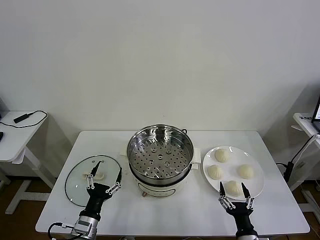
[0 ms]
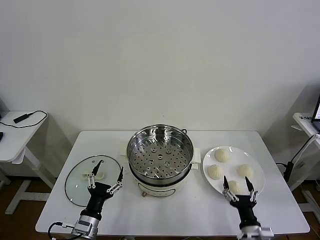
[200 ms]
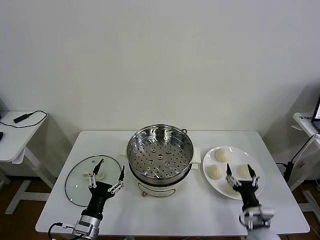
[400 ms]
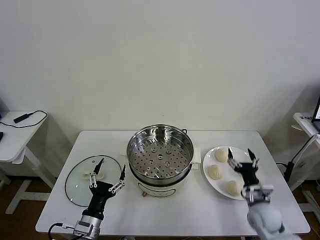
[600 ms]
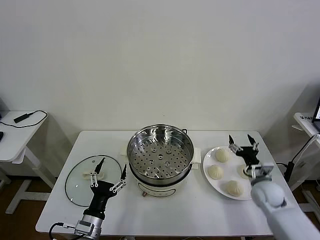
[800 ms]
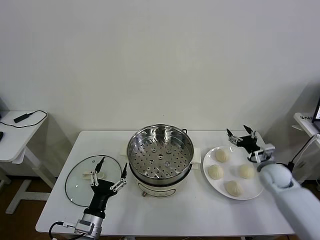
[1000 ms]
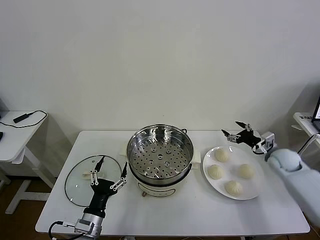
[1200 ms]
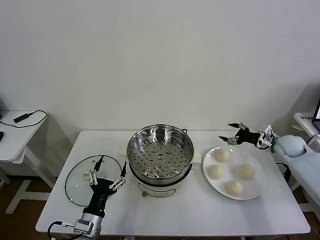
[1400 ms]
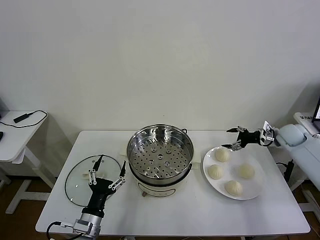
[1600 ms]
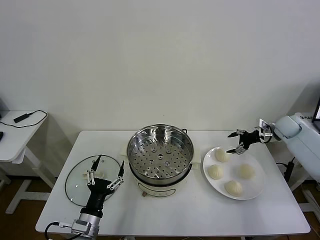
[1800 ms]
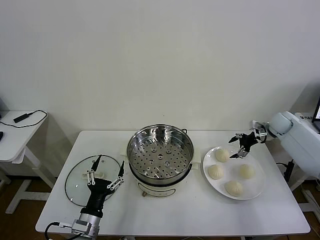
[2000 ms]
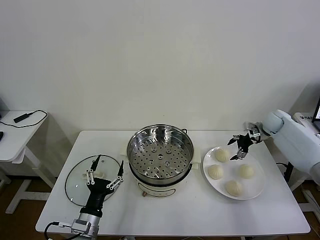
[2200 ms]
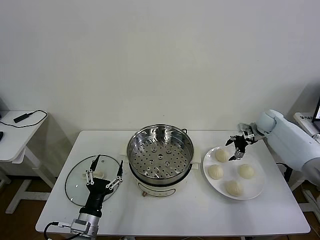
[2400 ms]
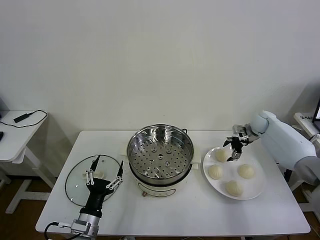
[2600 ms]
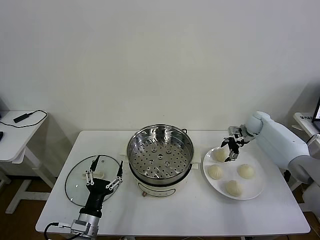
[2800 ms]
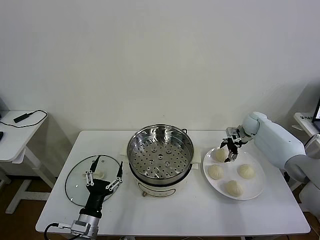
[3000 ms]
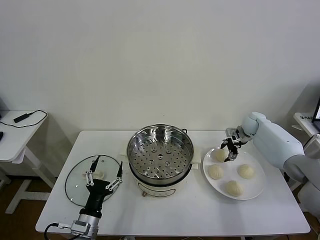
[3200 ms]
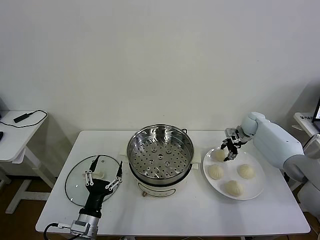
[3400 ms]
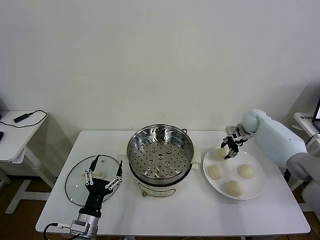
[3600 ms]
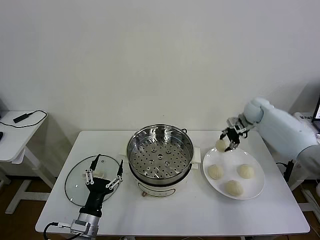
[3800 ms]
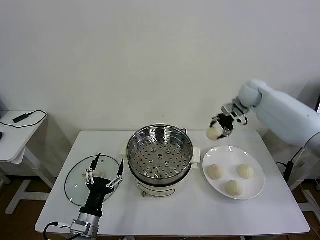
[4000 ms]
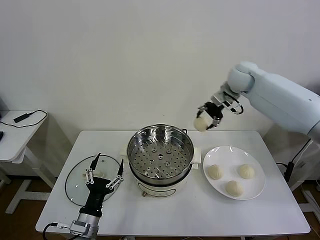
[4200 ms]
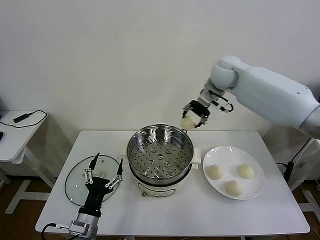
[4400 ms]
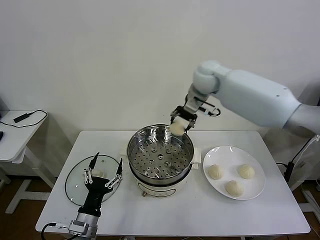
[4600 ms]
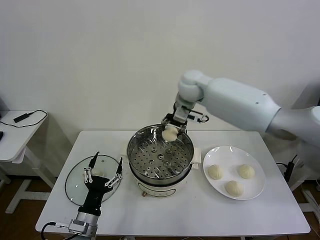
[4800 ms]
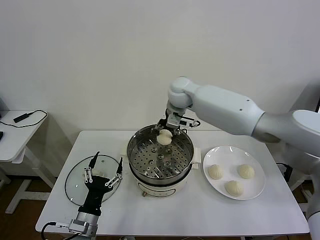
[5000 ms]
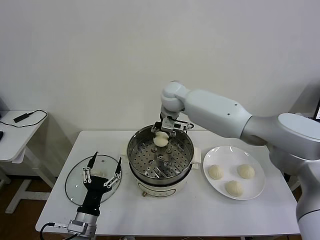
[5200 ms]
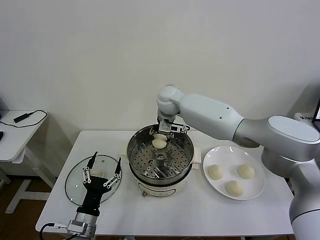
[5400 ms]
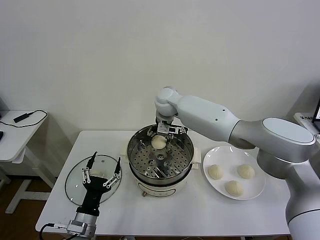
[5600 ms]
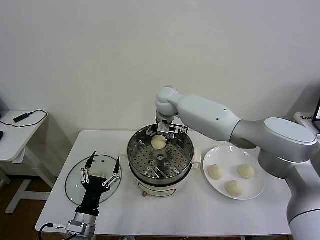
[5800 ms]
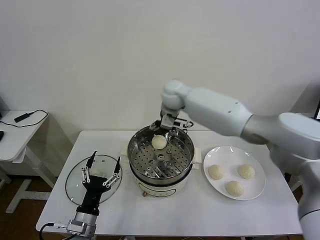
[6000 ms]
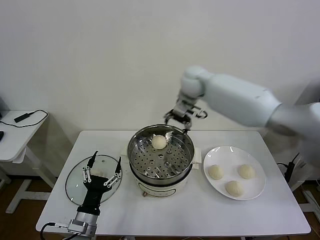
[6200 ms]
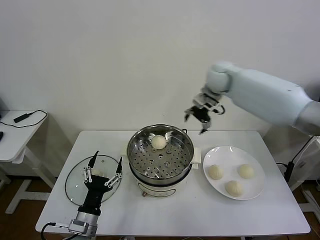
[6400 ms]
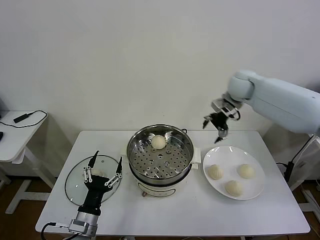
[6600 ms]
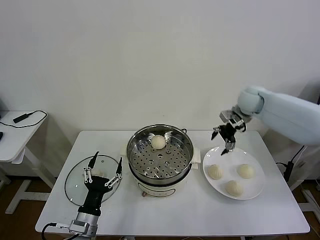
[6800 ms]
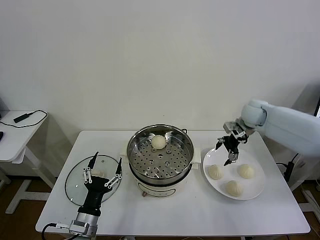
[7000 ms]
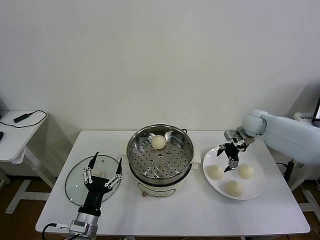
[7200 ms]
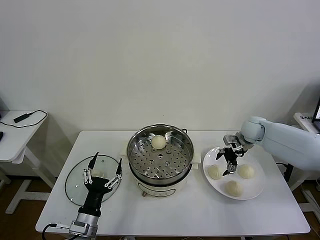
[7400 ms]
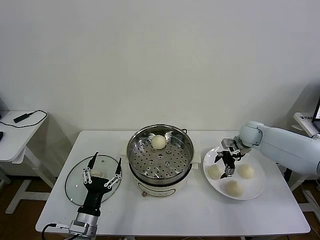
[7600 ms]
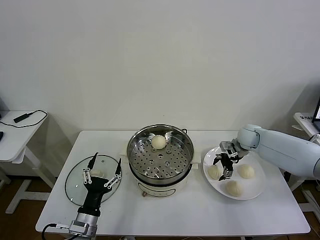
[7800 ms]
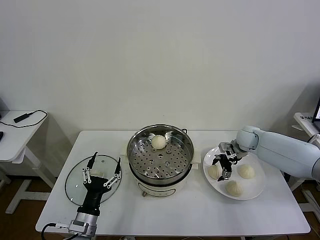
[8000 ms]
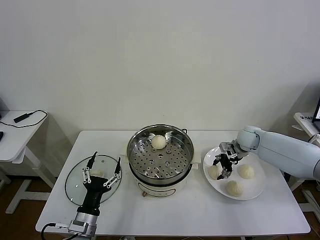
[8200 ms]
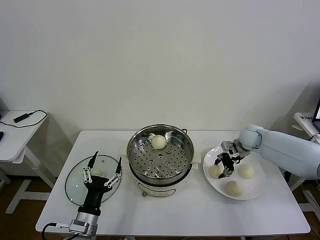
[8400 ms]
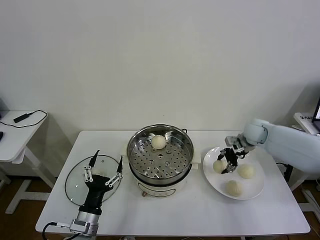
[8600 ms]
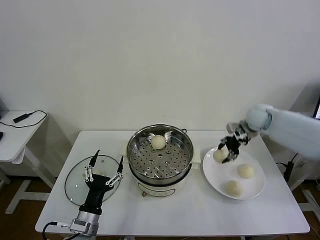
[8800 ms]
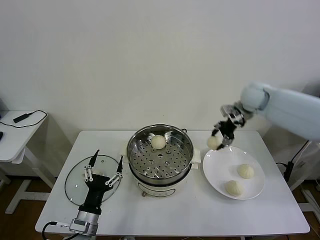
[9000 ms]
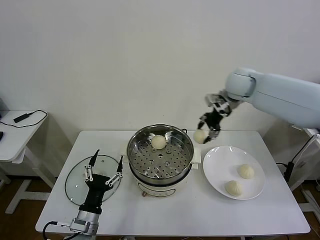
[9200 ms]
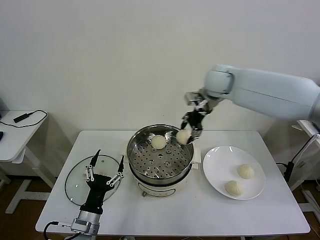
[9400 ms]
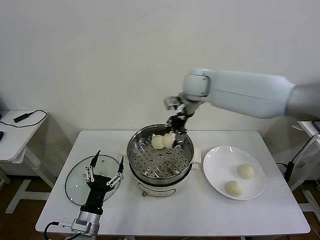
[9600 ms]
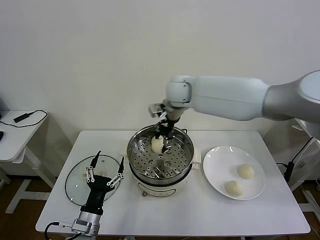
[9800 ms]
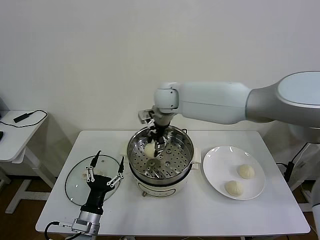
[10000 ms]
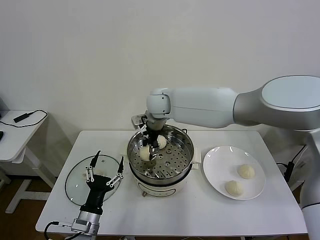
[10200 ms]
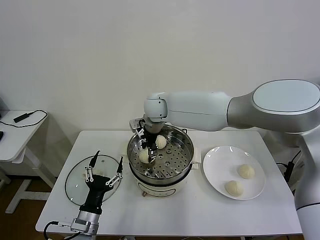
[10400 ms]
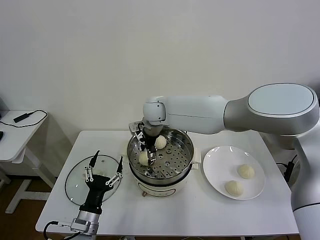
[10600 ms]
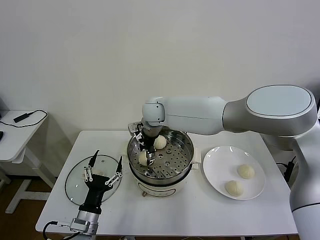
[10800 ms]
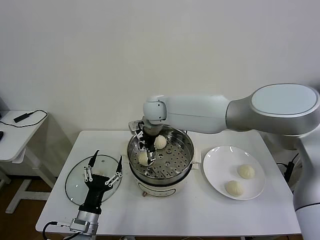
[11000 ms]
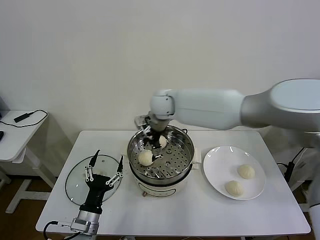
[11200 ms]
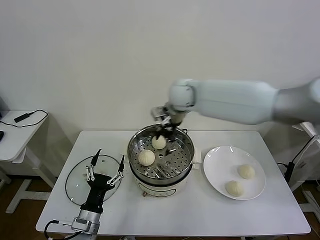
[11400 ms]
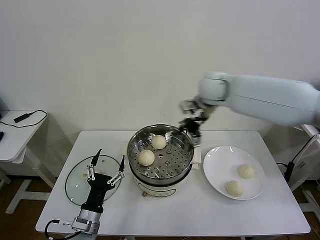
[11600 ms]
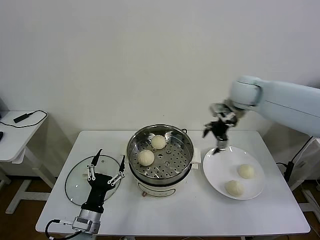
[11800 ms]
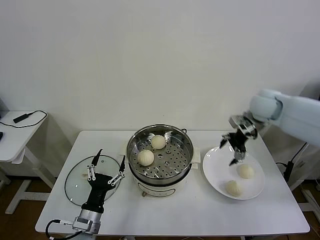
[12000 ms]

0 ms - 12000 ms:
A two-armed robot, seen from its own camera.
Task of the whole recording: take steamed baozi put them in steamer then cover it.
Step, 0 ms - 3400 ms: Grasp the baozi in the plate with right gripper.
Step, 3600 ms - 5800 ms: Place the baozi on the steamer with right gripper.
Step, 6000 ms - 8400 ms: Grasp the baozi in the plate with right gripper.
Step, 8600 ms - 11000 ms: Place the baozi on the steamer with right gripper.
1600 ms - 3000 ms: The right gripper is displaced to the left and forward by about 10 cm.
3000 ms - 4400 ms: The right gripper shifts approximately 35 cm upward and to the left, and closes up.
4400 ms - 6000 ms: The right gripper travels to the left by some 10 cm, and opens up.
6000 ms - 7600 ms: The right gripper shifts some 35 cm to the right and downward.
7600 ms - 9000 ms: The right gripper heads upward, covering roughly 20 cm, and closes its fingers.
9000 ms - 10400 ms: The right gripper travels to the left by roughly 30 cm.
10400 ms - 12000 ms: The right gripper goes roughly 35 cm to the right, and opens up.

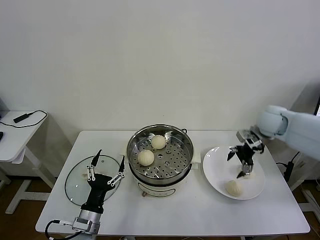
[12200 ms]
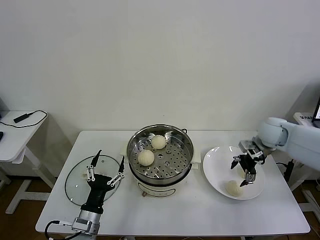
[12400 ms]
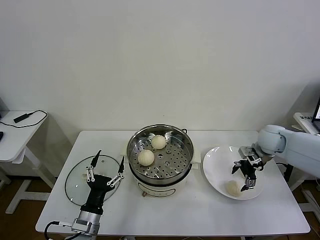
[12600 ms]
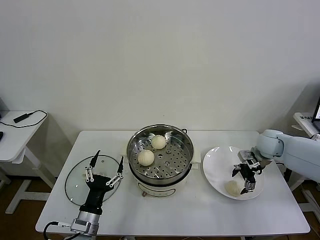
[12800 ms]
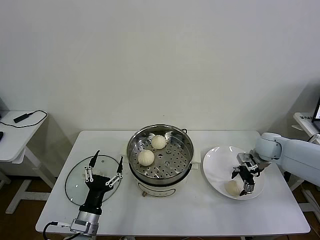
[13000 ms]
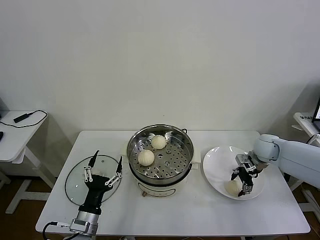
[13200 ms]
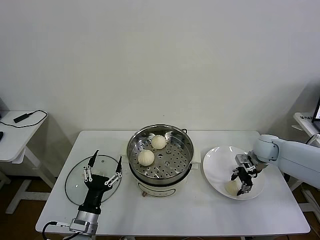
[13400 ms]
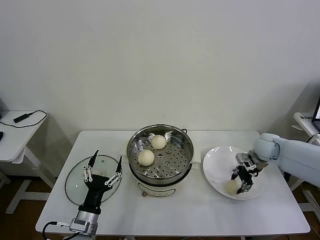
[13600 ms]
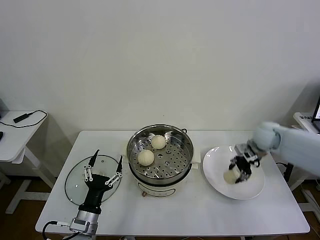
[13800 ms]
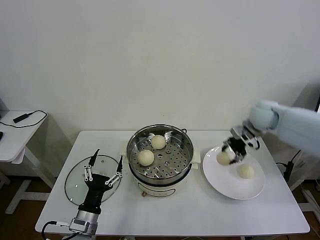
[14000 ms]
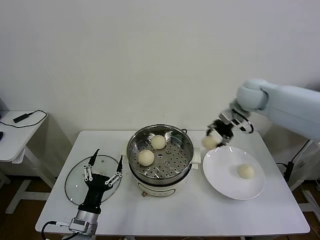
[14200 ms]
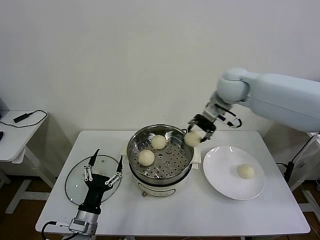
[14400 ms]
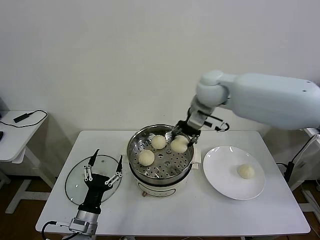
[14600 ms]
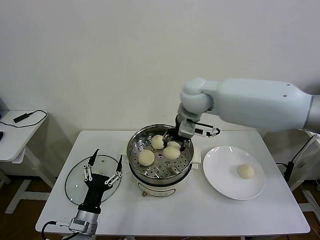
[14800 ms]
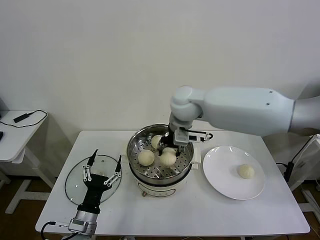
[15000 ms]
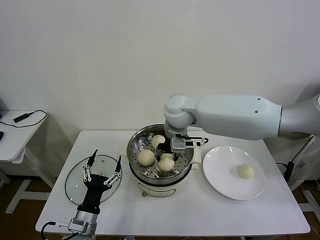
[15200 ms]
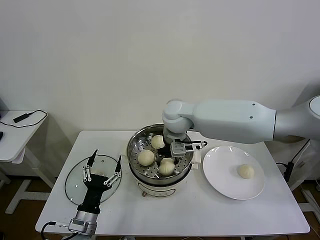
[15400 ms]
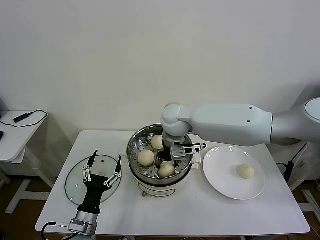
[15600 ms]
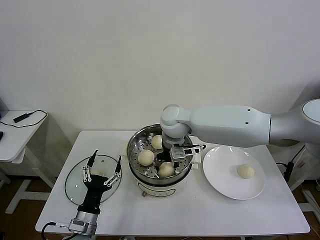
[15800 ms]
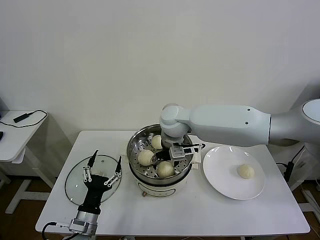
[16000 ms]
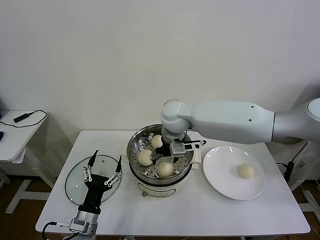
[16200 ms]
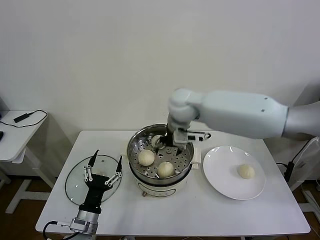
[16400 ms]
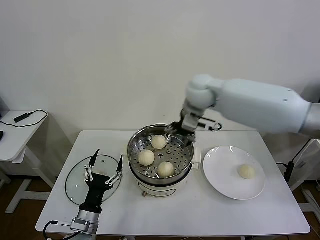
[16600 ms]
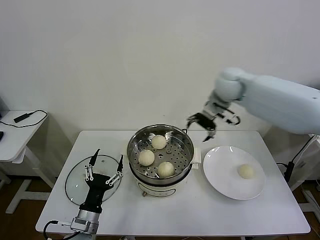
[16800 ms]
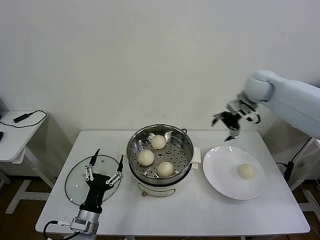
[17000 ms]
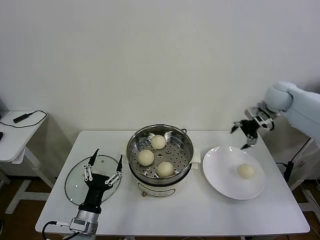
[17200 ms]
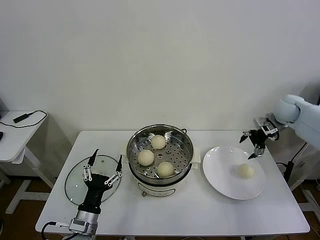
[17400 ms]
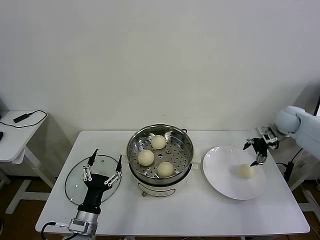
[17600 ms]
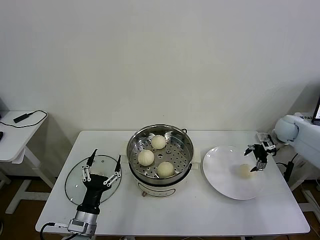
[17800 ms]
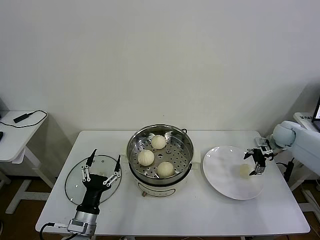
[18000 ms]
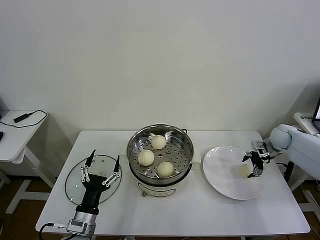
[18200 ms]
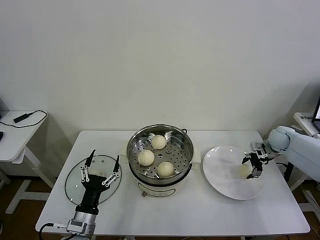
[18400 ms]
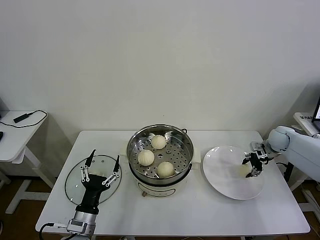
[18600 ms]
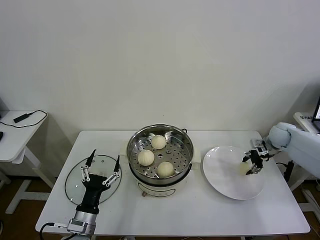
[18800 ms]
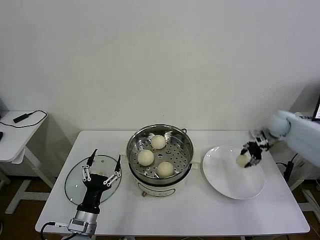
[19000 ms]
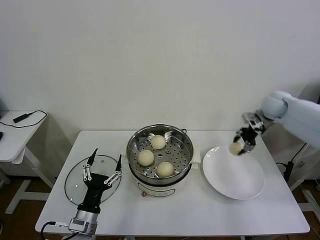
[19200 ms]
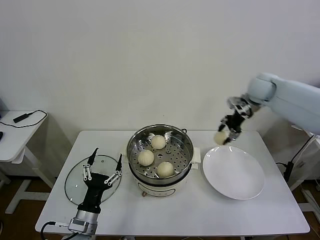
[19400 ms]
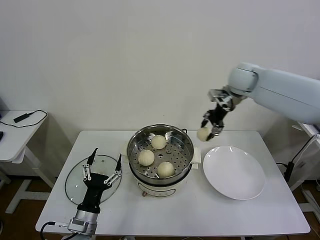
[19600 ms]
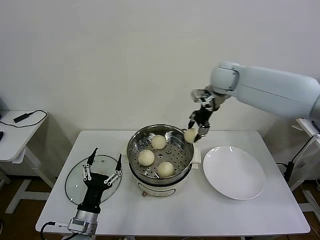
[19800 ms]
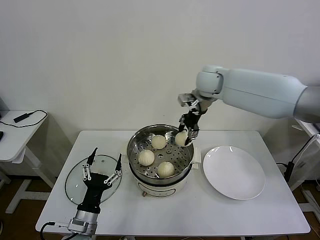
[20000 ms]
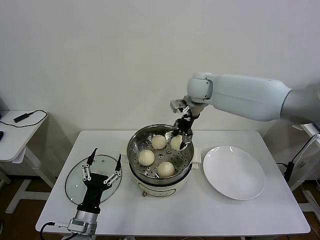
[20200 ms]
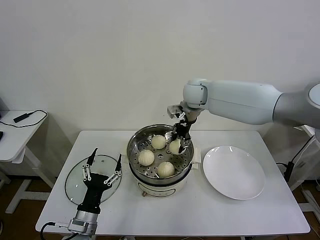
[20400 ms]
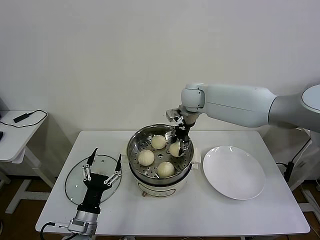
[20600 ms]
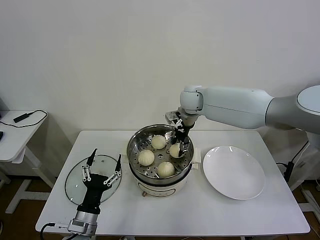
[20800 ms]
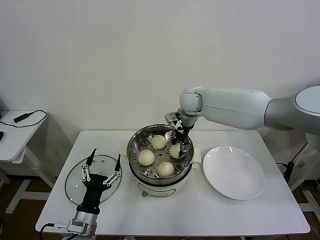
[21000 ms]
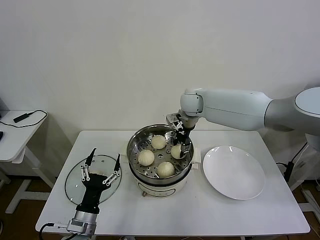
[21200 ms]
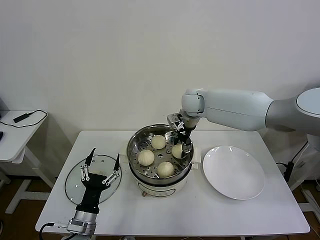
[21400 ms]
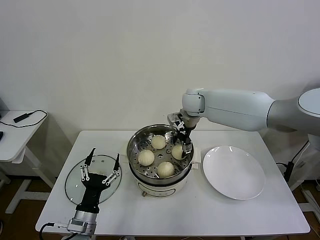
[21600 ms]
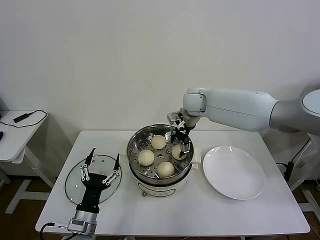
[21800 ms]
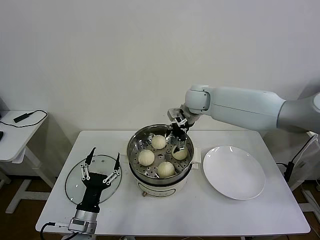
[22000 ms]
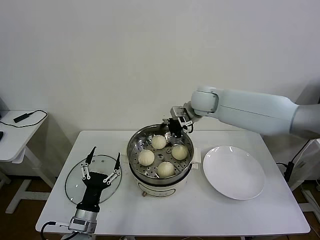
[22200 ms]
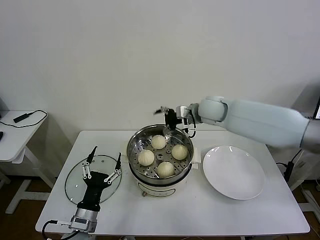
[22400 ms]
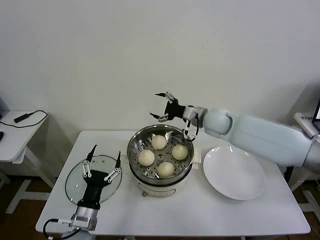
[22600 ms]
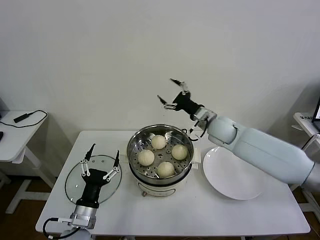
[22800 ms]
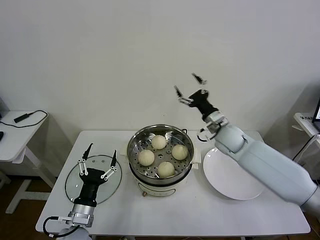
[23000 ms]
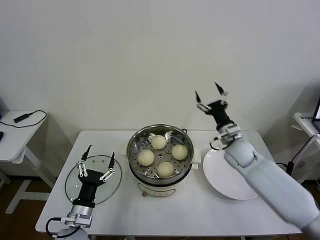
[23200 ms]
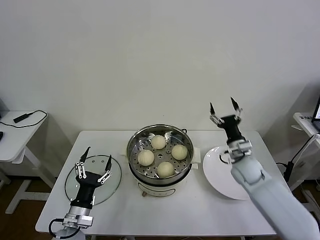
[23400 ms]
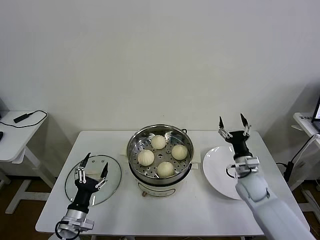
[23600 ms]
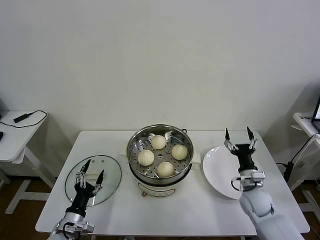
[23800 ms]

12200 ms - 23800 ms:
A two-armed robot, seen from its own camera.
Task of the whole recording: take steamed baozi put them in steamer then cover it.
Step, 12200 ms - 13400 ms: Grasp the baozi in the plate with right gripper.
Step, 13800 ms - 16000 ms: Place the baozi on the steamer with right gripper.
Step, 16200 ms - 18600 ms: Grasp the baozi in the plate with right gripper.
Step, 18800 ms - 21600 ms: Place the baozi on the steamer with right gripper.
12200 ms - 13600 ms: The right gripper travels downward by about 10 cm, and closes up.
13600 ms - 15000 ms: The right gripper moves to the left and upward, some 35 cm.
15000 ms - 16600 ms: The right gripper goes roughly 10 cm to the right, and opens up.
16600 ms - 18000 ms: The right gripper goes about 40 cm to the right and downward.
18000 ms - 19400 ms: The right gripper goes about 25 cm upward and to the left, and closes.
19400 ms - 21000 ms: The right gripper is displaced to the left by approximately 20 cm.
21000 ms - 22400 ms: The right gripper goes roughly 5 cm to the right, and opens.
22400 ms - 23800 ms: The right gripper heads downward, backward and to the right, covering about 35 cm. Meanwhile the left gripper heads to the left and downward, covering roughly 10 cm.
